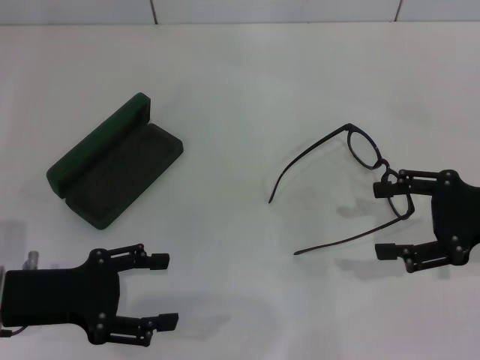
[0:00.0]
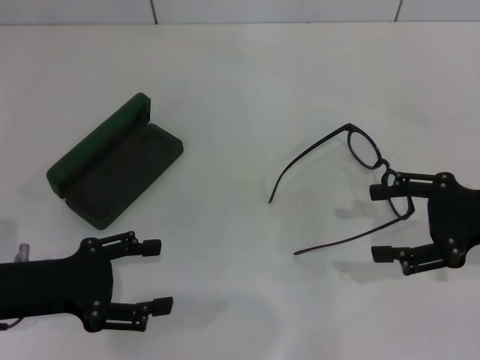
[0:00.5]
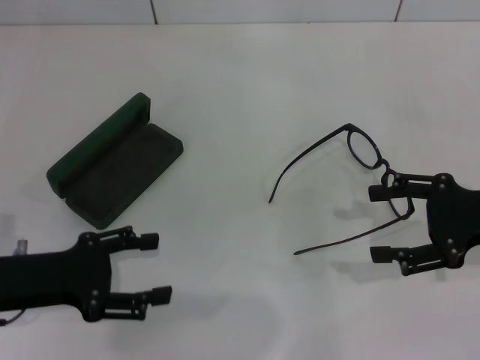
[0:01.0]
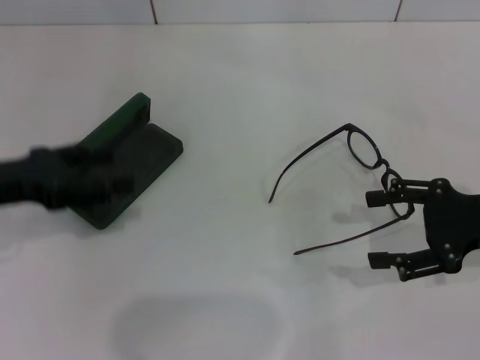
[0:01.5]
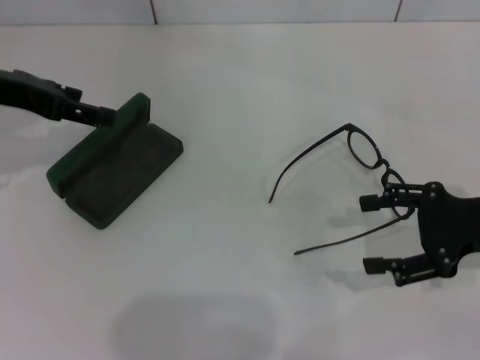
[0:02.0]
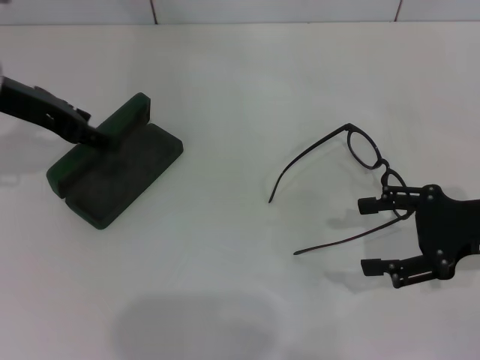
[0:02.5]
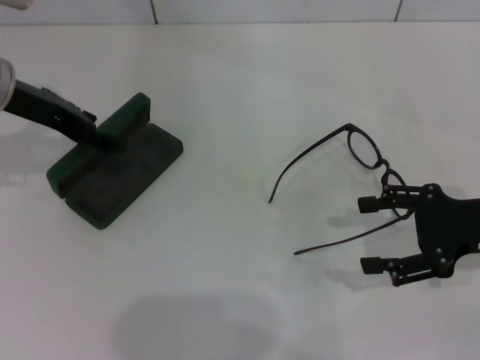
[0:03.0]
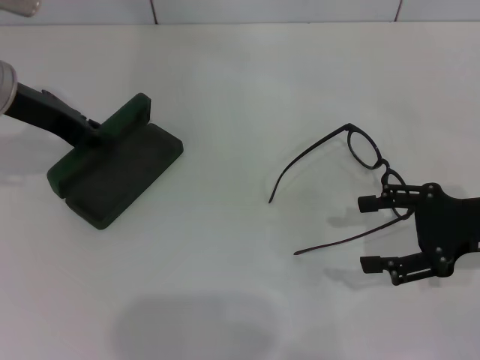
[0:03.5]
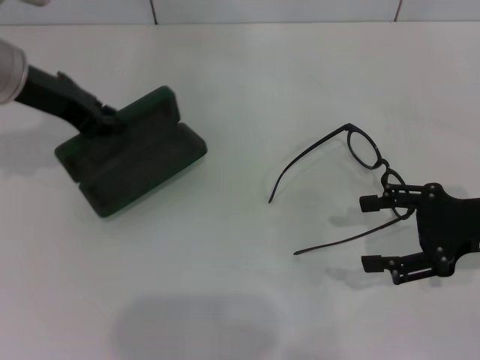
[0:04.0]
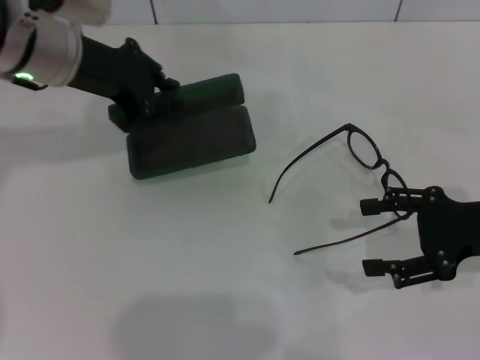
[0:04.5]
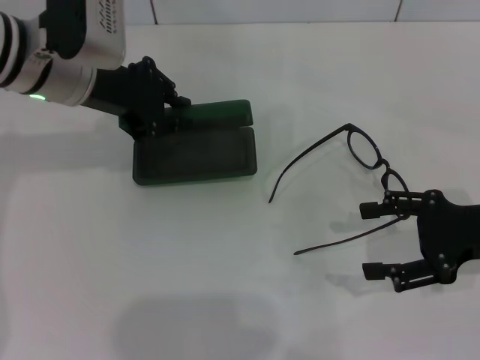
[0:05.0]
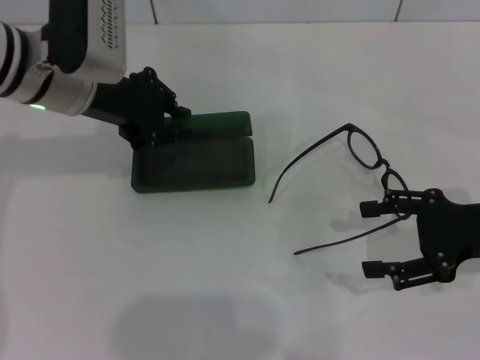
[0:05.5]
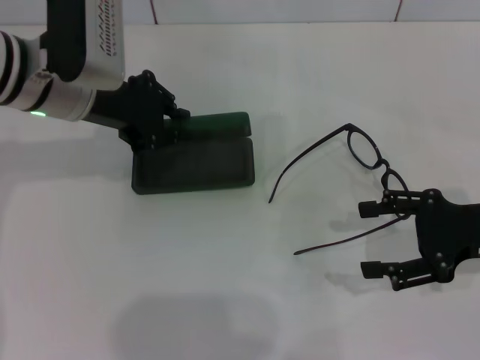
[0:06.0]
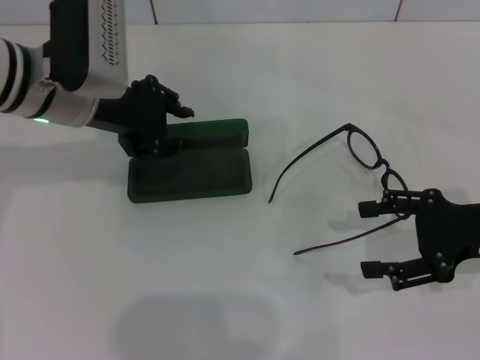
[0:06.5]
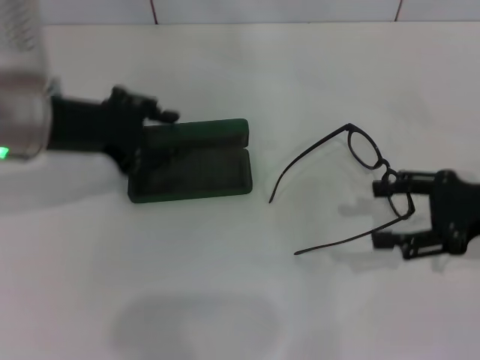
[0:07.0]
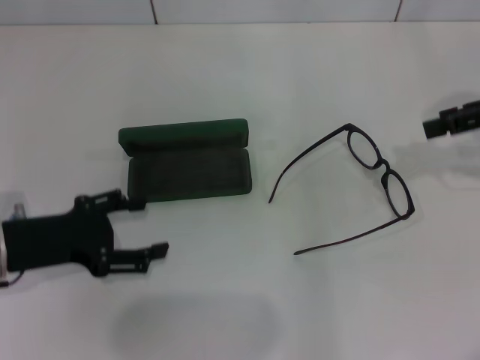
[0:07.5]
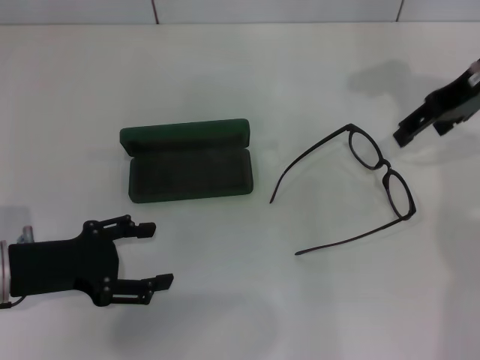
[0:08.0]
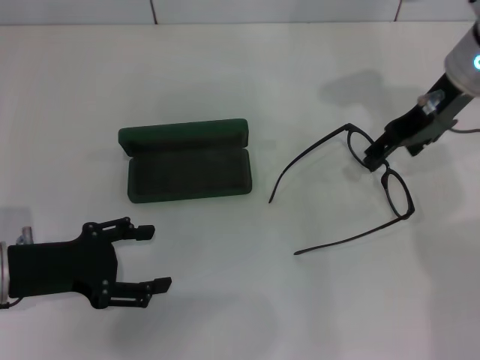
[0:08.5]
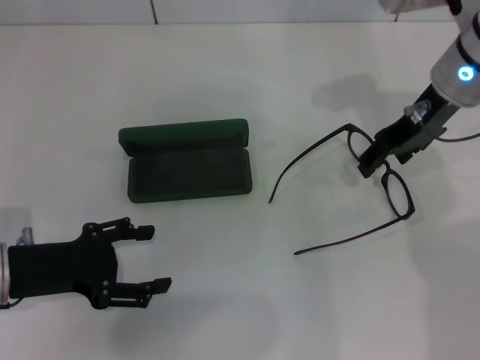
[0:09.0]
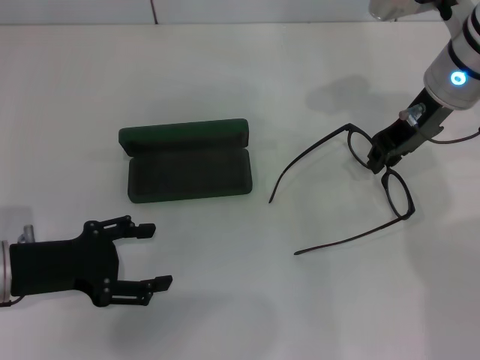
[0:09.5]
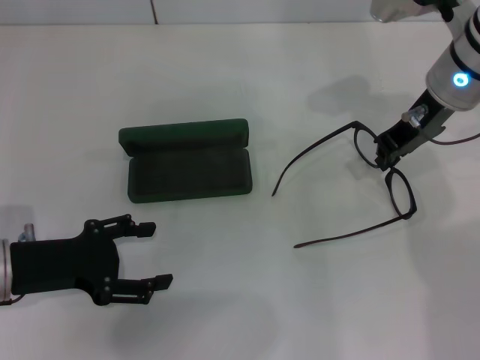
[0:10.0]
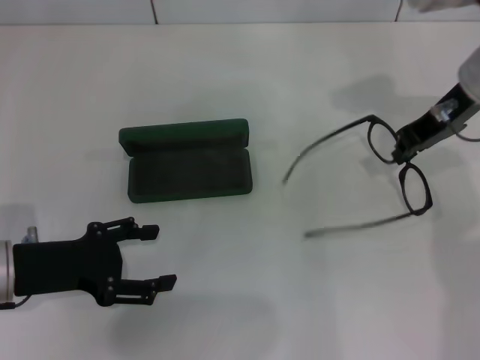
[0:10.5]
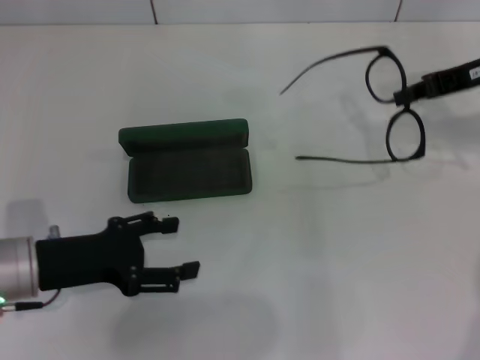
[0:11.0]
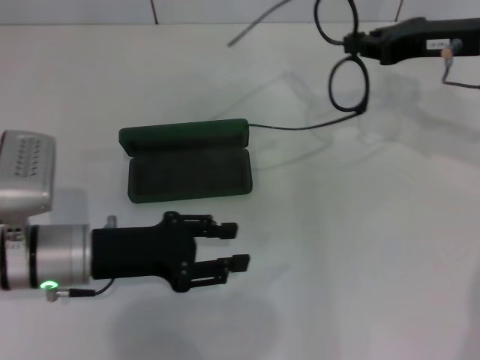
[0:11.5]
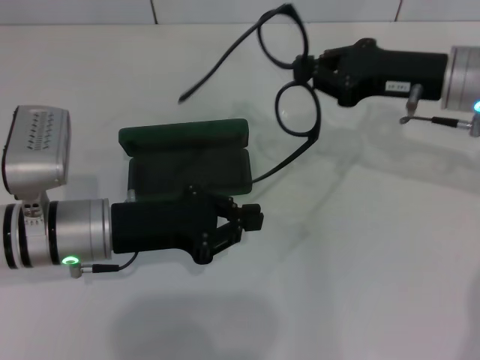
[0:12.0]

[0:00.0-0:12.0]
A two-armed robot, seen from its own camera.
Step, 0:00.0 to 0:03.0: Grab the glasses case with your left hand.
Step, 0:03.5 to 0:06.0: Place the glasses case in the center of the table with your left hand.
Step, 0:06.5 to 0:09.5: Grab the eyeglass frame with your right hand.
0:00.0 to 0:02.0: The left gripper moves forward and upward, some 20 cm.
0:02.0 to 0:04.0: The left gripper moves to the right, some 5 cm, and closes up.
0:04.0 to 0:06.0: The left gripper ends up roughly 5 cm from where it was.
0:06.0 to 0:08.0: The right gripper moves forward and upward, roughly 20 cm. Meanwhile the left gripper travels backward, downward and to the left by roughly 20 cm, and opens its fingers.
0:08.0 to 0:10.0: The right gripper goes roughly 5 cm to the left, and closes.
0:10.0 to 0:12.0: The left gripper is displaced to the right by approximately 10 cm, and closes up.

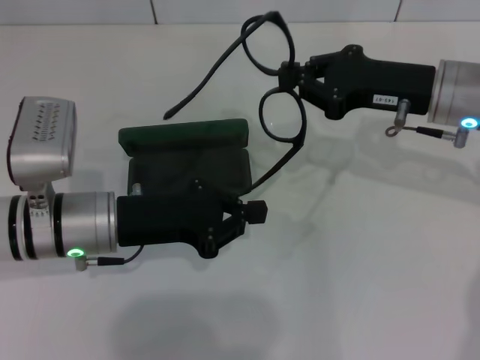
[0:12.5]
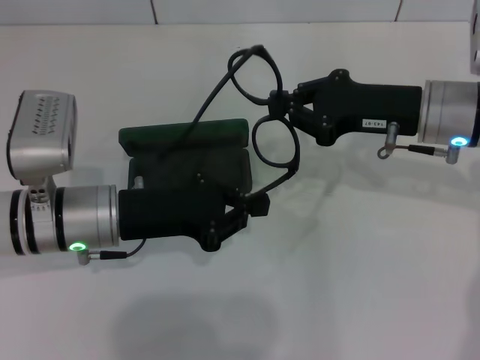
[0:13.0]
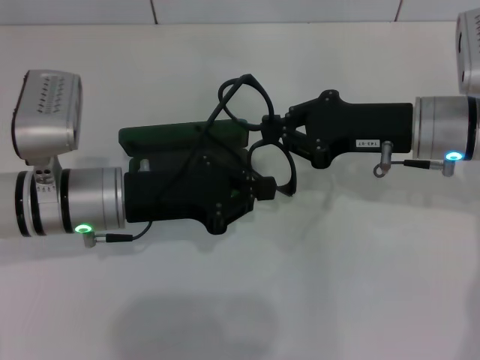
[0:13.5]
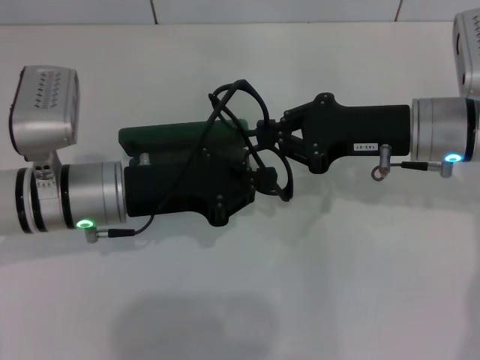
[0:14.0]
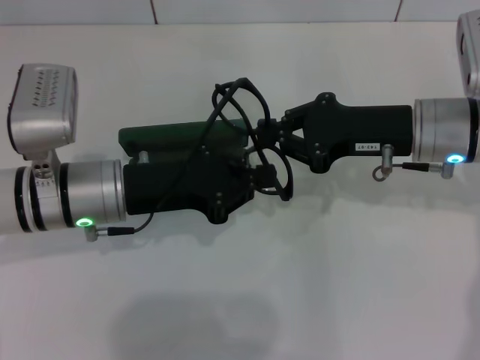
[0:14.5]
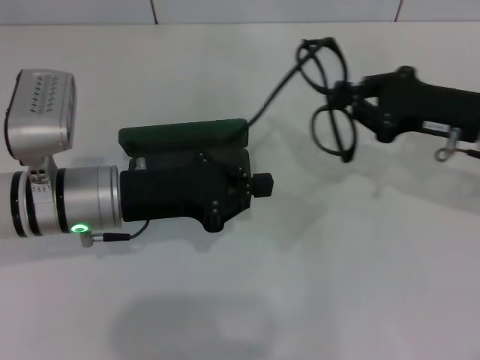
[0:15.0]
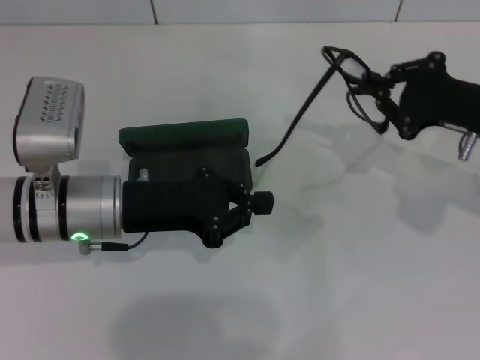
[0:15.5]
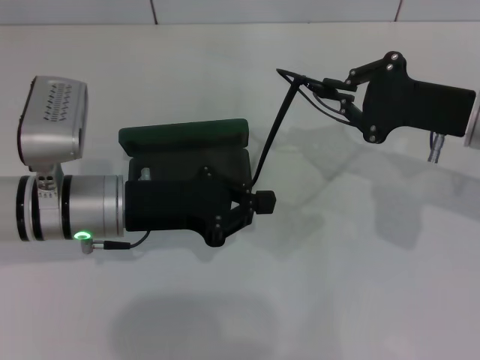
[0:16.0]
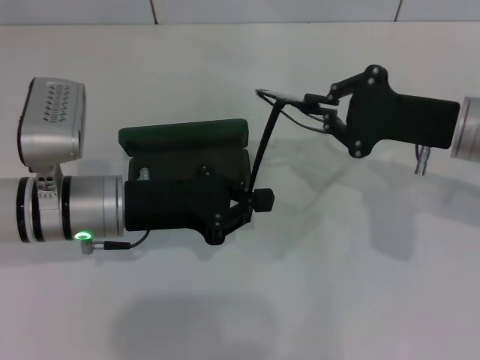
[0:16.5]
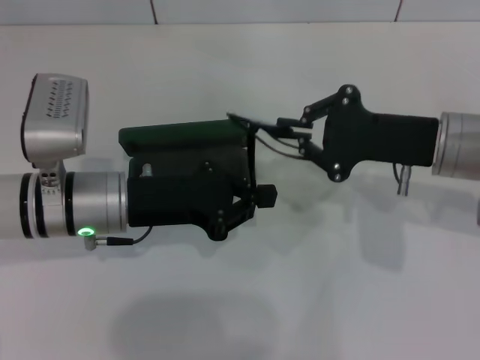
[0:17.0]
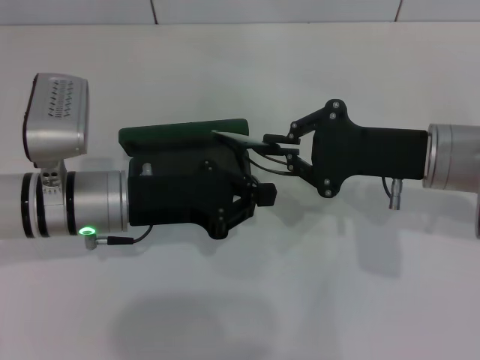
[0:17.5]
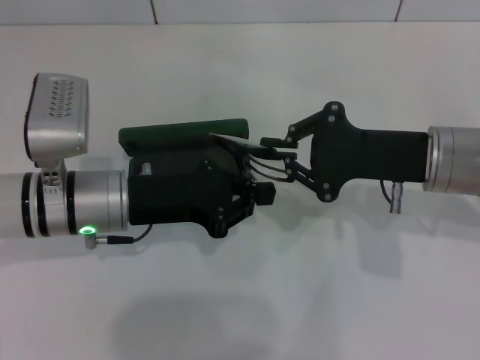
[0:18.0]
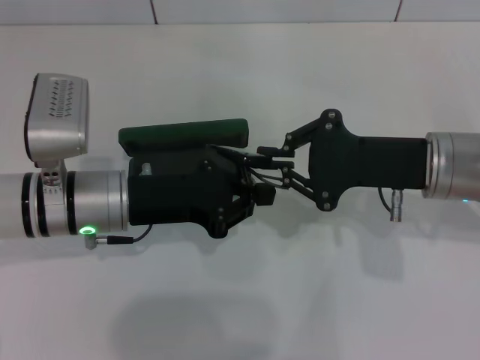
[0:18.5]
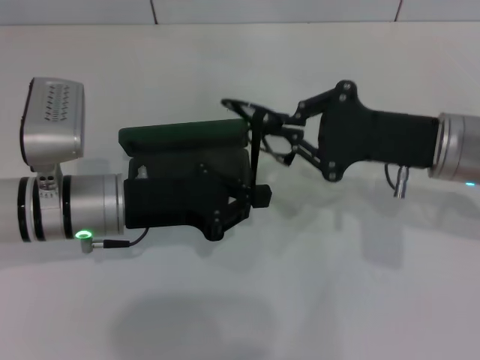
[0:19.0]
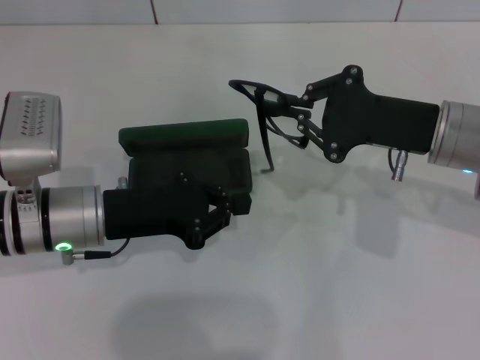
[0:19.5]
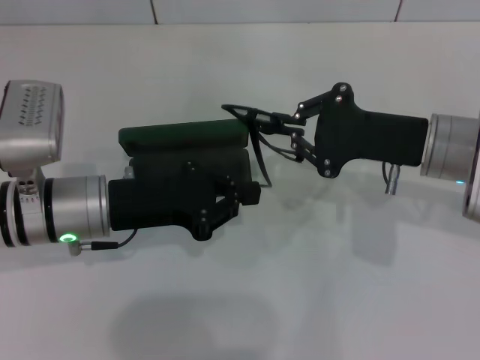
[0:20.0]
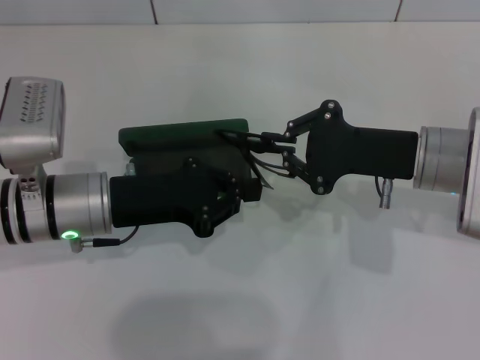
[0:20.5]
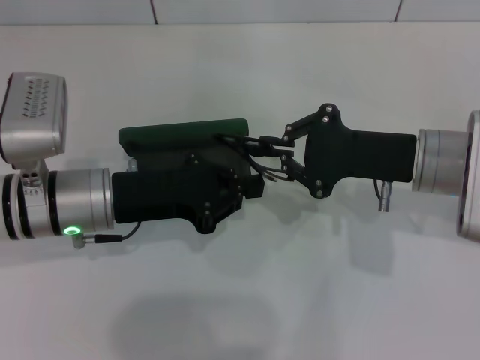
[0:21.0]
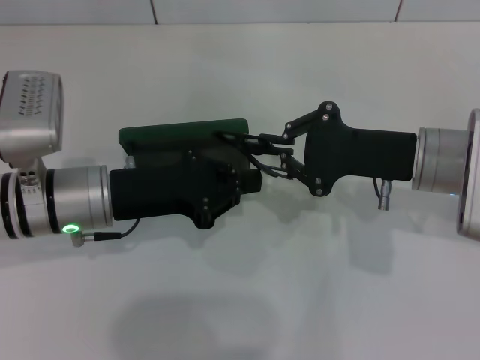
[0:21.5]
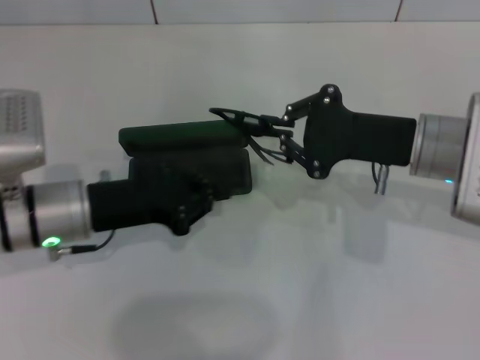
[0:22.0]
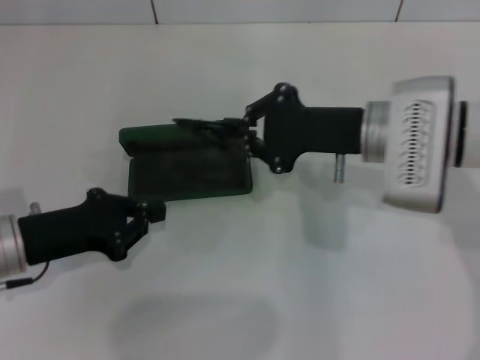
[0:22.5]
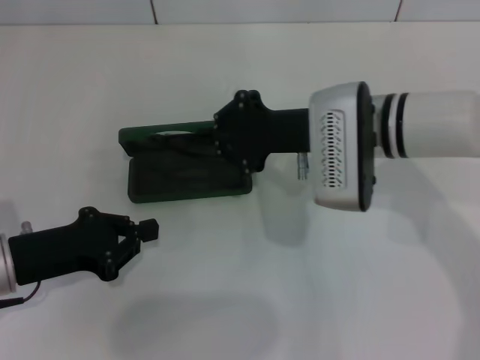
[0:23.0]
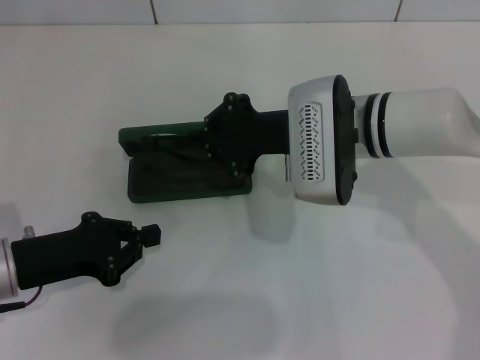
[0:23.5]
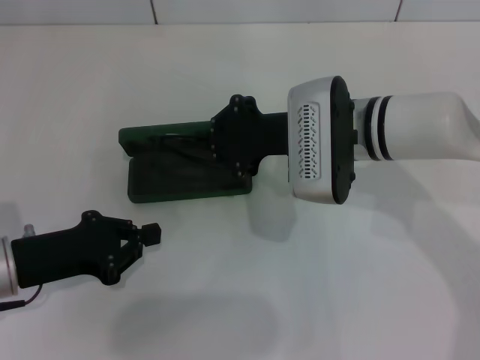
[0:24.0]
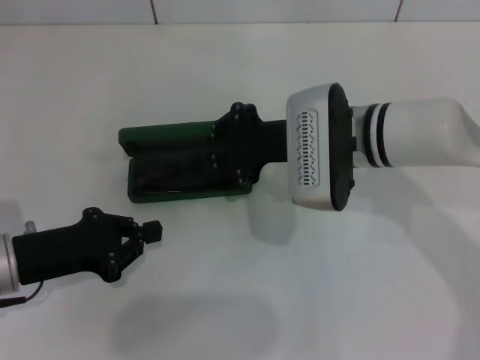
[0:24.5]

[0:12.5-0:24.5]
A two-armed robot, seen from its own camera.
Step, 0:12.5 to 0:21.5: Lift the glasses with your right hand.
0:16.5 to 0:20.5: There are only small adjustments of the grippers.
0:20.5 to 0:22.5: The right gripper shifts by some 5 cm; the left gripper goes roughly 10 cm to the left.
0:22.5 to 0:24.5: The right gripper heads to the left, covering roughly 5 cm.

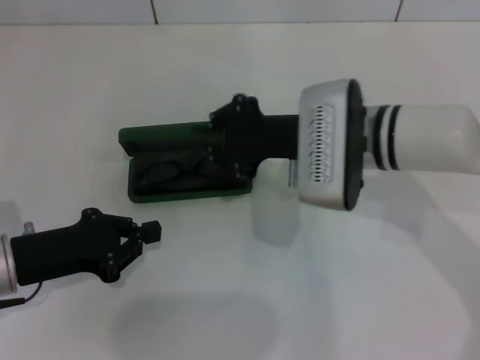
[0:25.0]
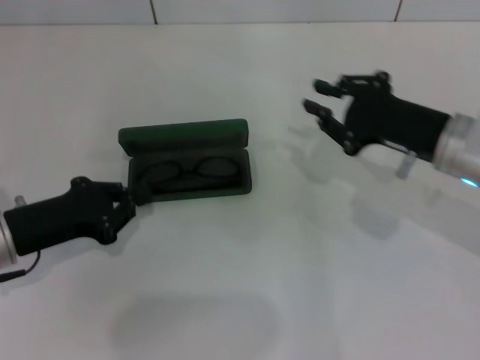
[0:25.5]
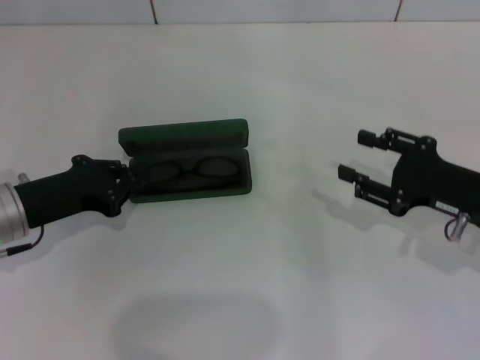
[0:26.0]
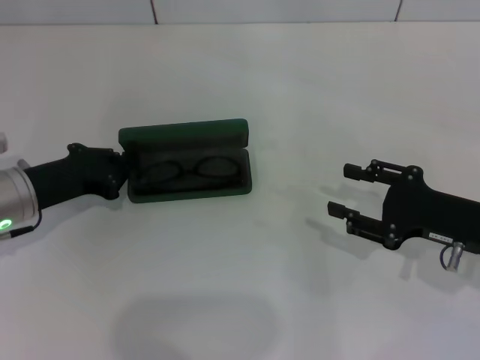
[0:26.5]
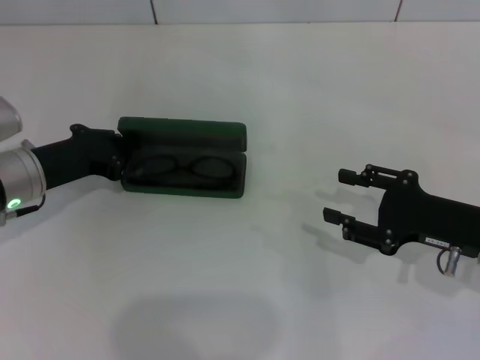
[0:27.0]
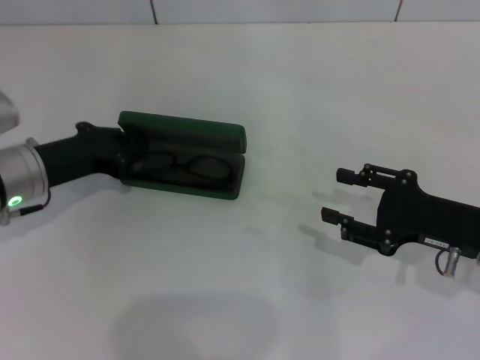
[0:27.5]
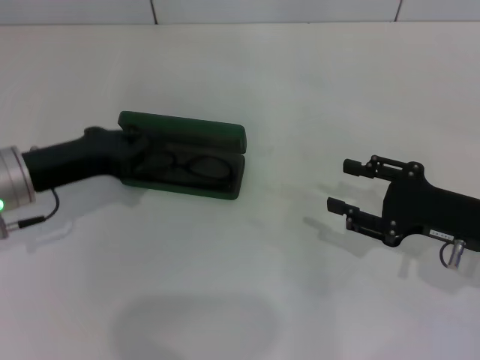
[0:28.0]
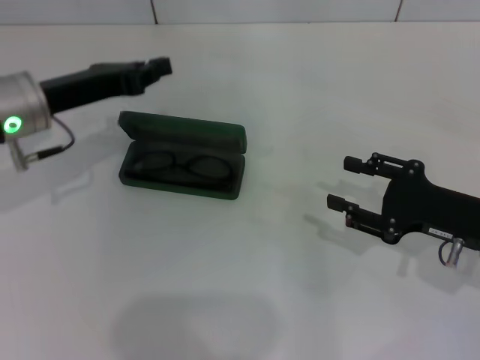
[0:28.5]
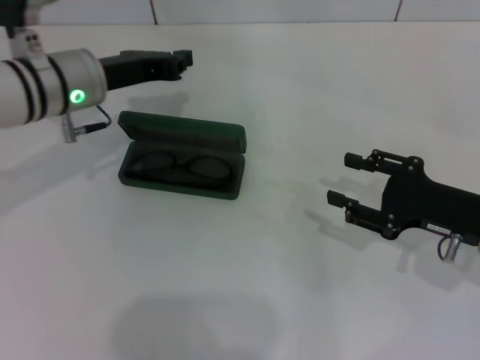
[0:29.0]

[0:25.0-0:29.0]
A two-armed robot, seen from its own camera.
0:25.0 to 0:27.0: The right gripper goes some 20 cm to the right and backward, and opens its fingers. Meanwhile the left gripper shifts some 10 cm forward.
0:27.0 to 0:29.0: The left gripper shifts roughly 10 cm to the right, upward and forward.
